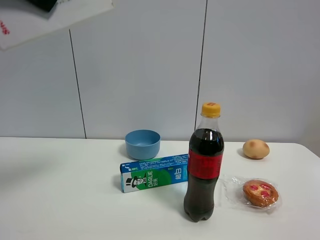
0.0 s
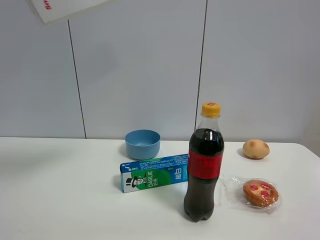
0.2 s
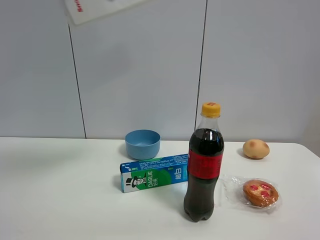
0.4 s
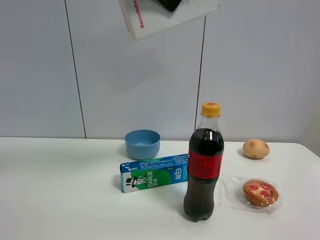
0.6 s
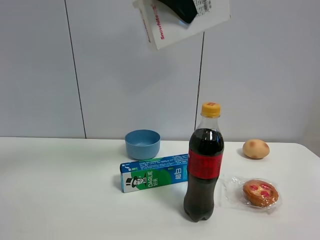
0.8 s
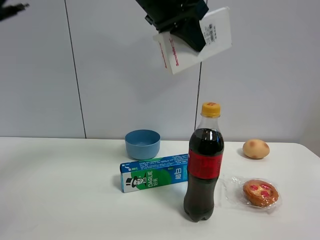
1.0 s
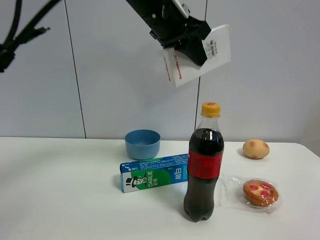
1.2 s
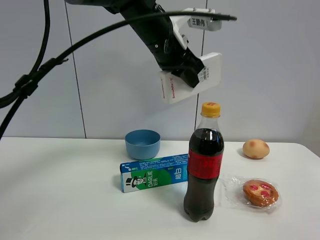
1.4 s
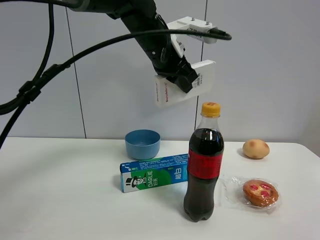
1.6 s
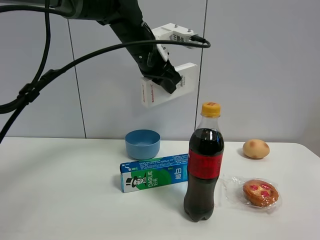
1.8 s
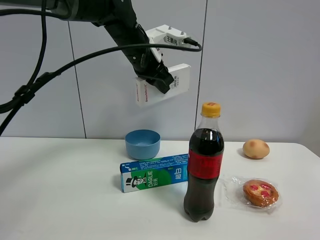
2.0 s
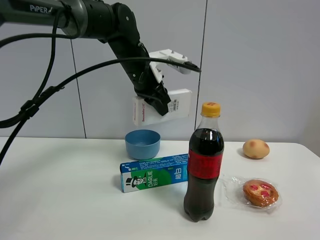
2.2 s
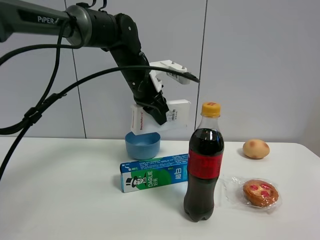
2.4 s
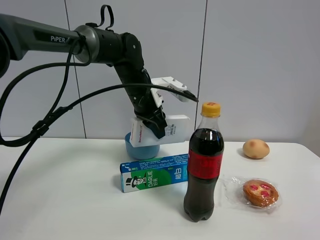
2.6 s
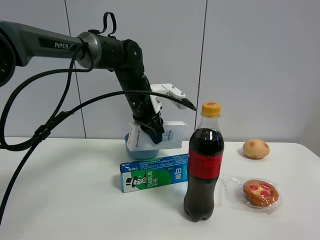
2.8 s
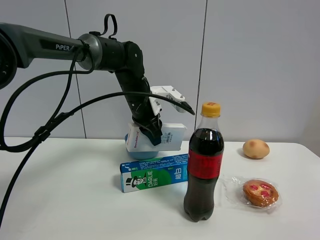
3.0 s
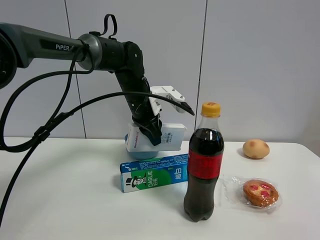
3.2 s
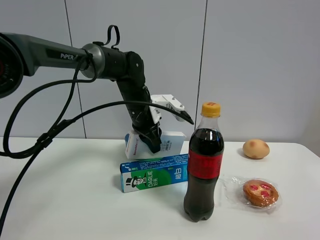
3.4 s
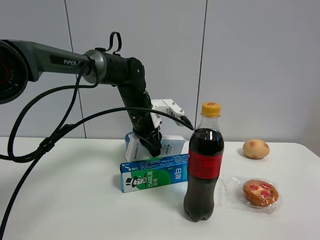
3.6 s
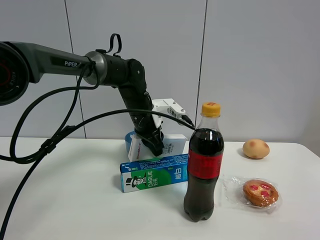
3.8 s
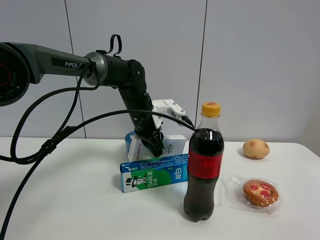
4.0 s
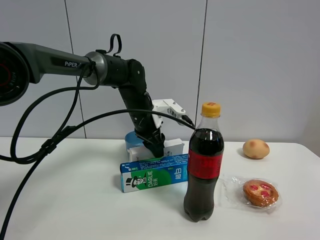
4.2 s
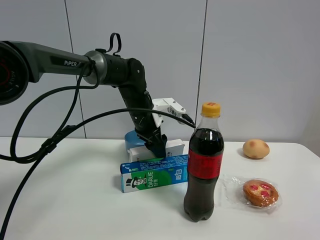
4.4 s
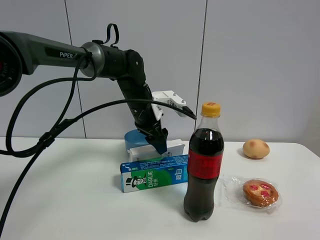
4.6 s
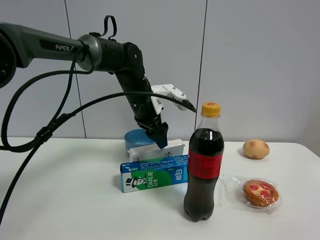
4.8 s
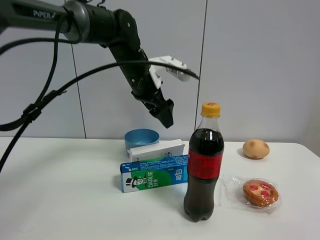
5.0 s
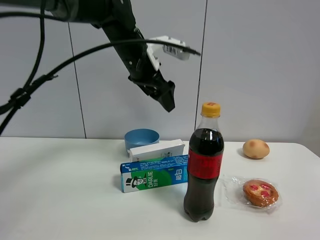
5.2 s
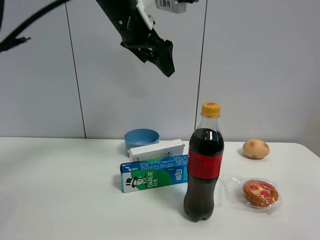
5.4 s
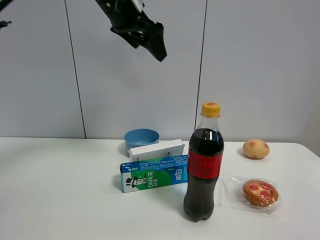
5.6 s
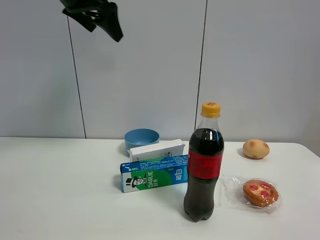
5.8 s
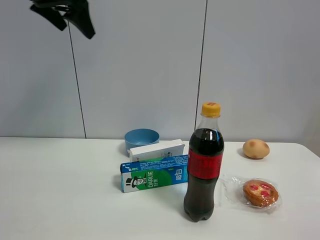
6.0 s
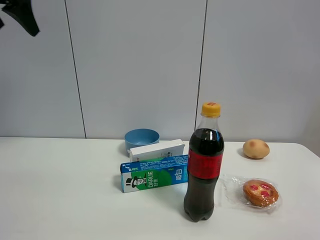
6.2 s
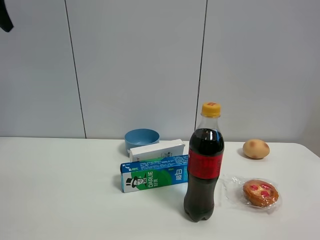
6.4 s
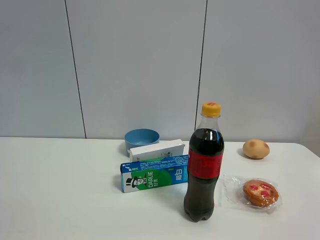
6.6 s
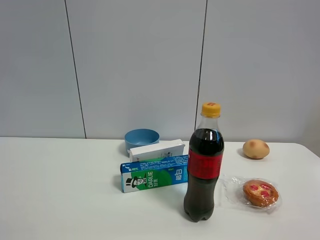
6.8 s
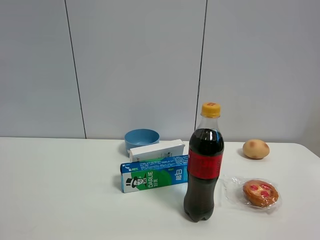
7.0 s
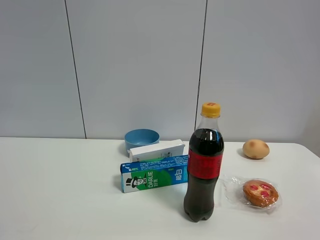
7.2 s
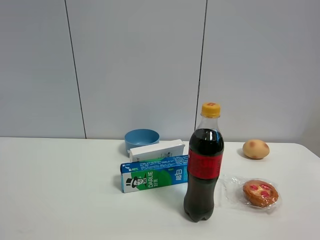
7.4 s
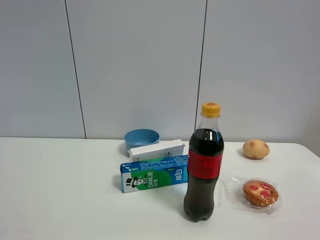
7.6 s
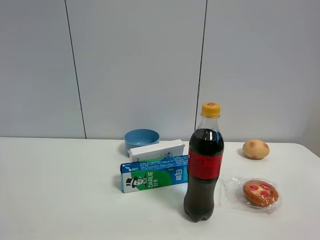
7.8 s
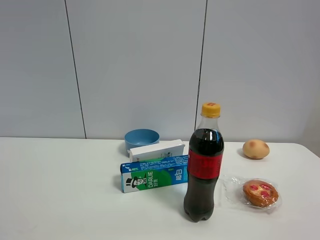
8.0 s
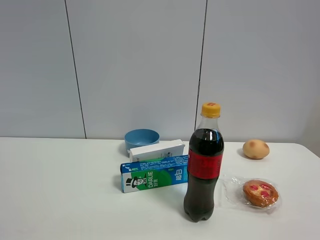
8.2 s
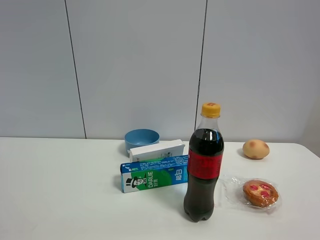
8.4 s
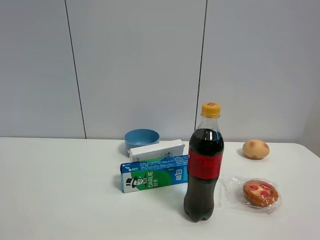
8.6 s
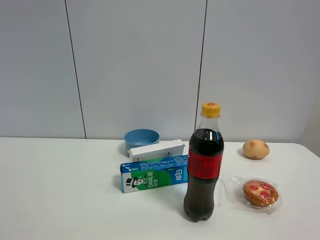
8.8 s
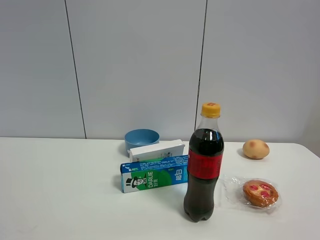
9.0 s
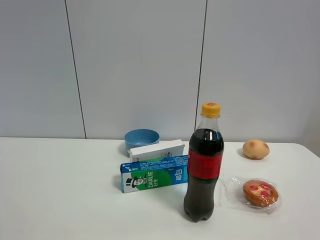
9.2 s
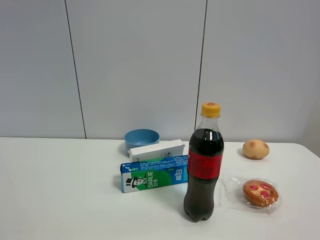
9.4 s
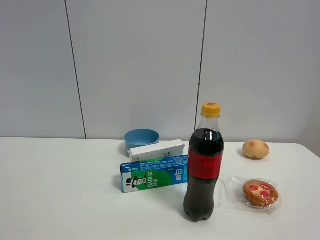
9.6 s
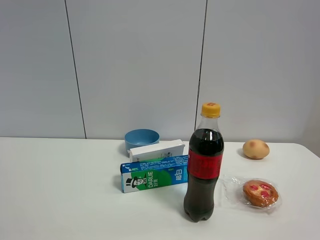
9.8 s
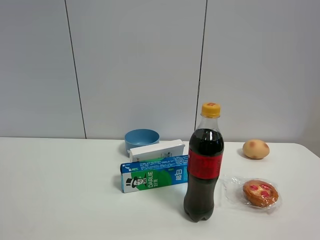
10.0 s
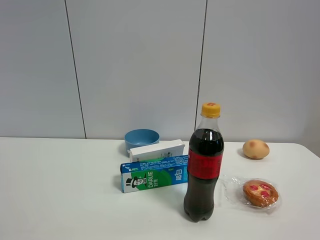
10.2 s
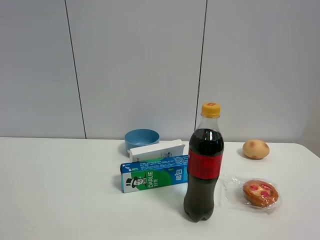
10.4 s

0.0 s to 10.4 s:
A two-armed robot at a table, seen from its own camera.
Task of the whole recording: the gripper move the object.
Step, 0.0 to 4.6 s: Place the USB box on the table with the left gripper.
0.0 to 1.4 s: The left gripper goes some 30 cm to the right, forward and downward.
1.4 to 3.0 s: The left gripper travels downward by about 15 cm.
3.0 to 4.4 s: The left gripper opens its fingers.
4.4 to 6.0 s: The left gripper is displaced upward and to the left by approximately 35 cm, and opens up.
6.0 to 7.4 s: The left gripper moves backward, roughly 35 cm.
9.0 to 10.4 s: Both grippers stay about where they are.

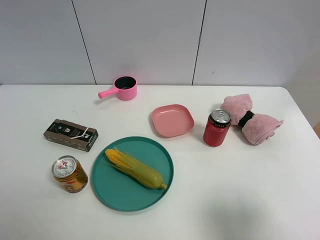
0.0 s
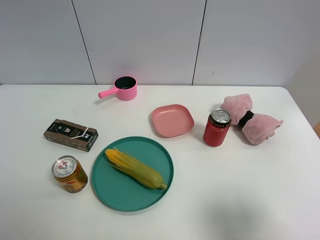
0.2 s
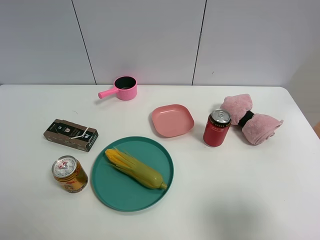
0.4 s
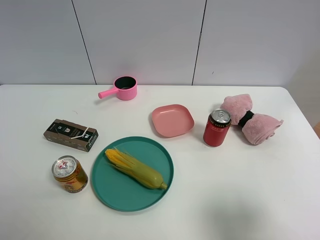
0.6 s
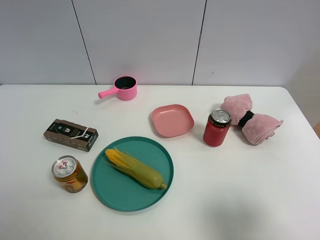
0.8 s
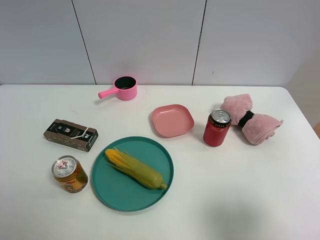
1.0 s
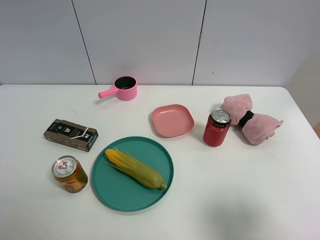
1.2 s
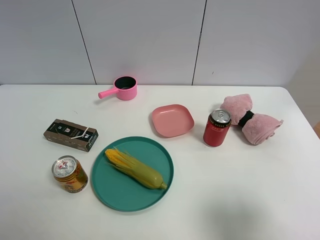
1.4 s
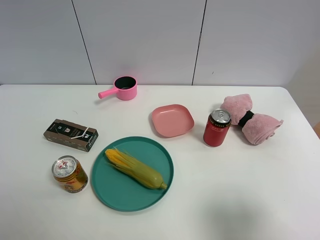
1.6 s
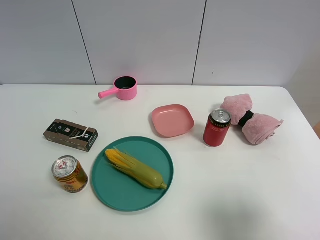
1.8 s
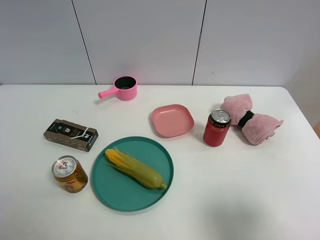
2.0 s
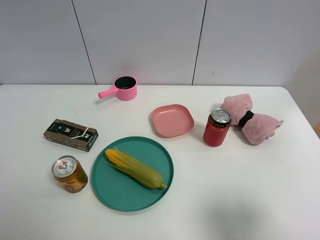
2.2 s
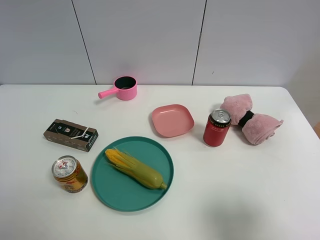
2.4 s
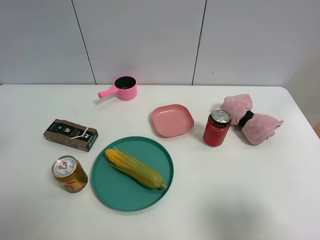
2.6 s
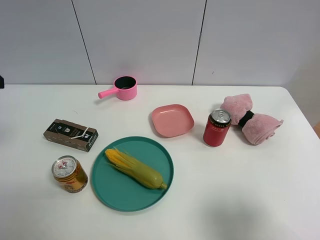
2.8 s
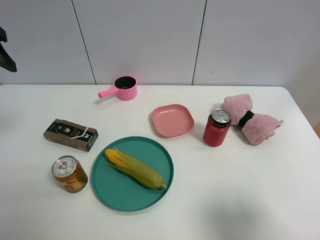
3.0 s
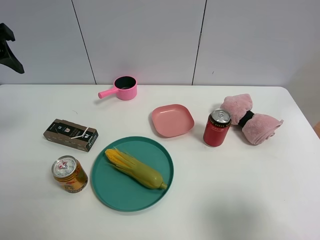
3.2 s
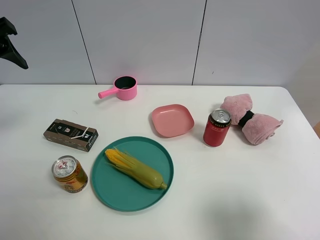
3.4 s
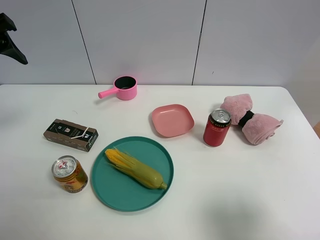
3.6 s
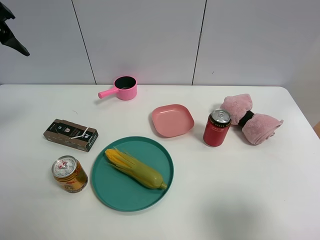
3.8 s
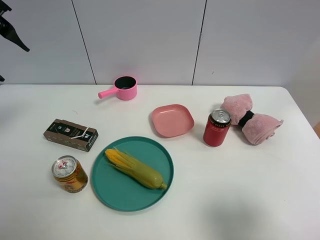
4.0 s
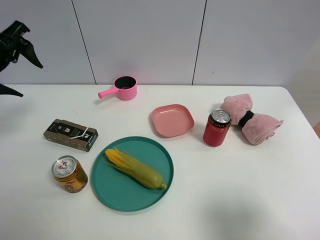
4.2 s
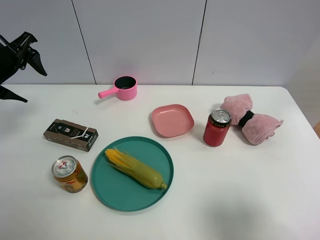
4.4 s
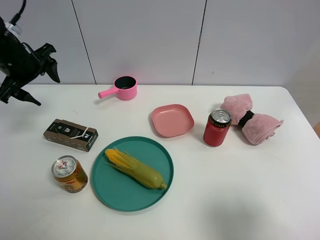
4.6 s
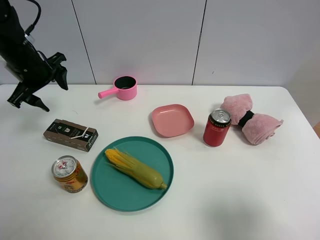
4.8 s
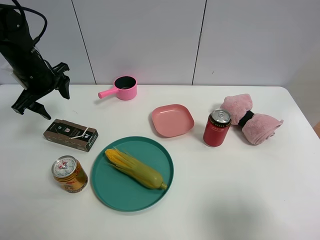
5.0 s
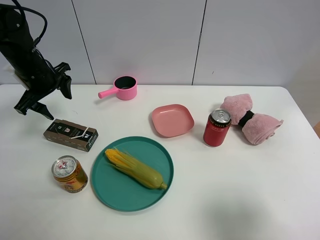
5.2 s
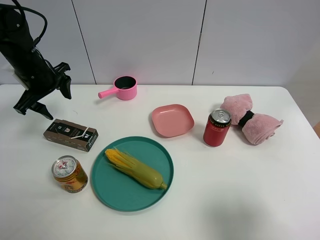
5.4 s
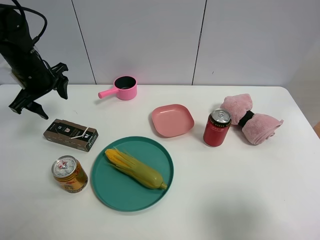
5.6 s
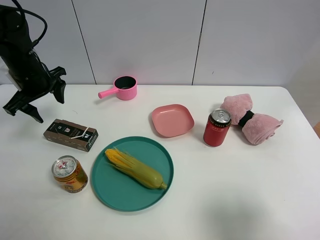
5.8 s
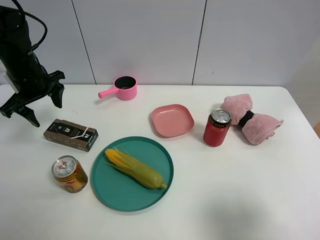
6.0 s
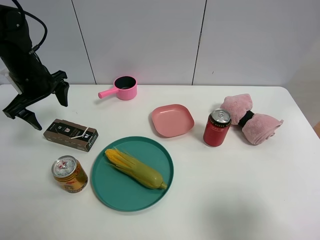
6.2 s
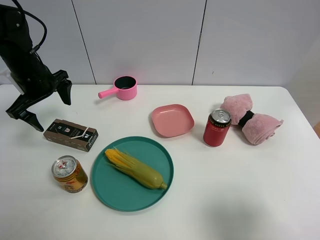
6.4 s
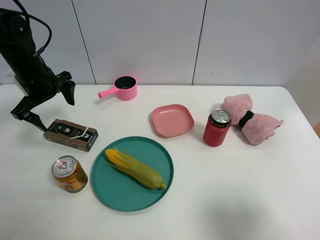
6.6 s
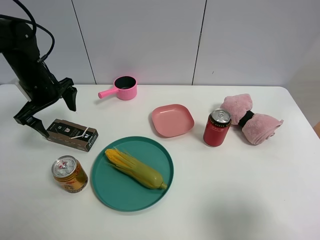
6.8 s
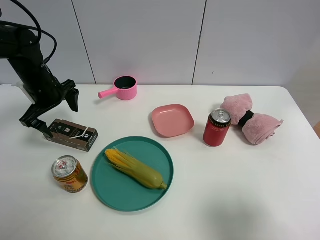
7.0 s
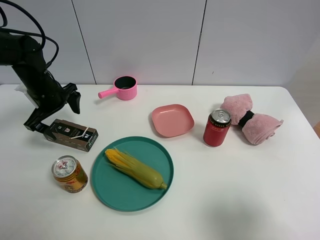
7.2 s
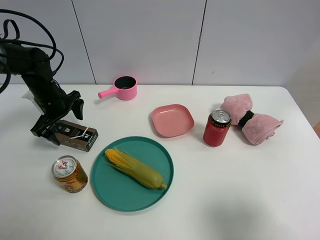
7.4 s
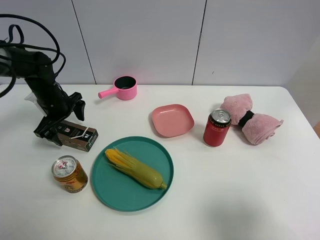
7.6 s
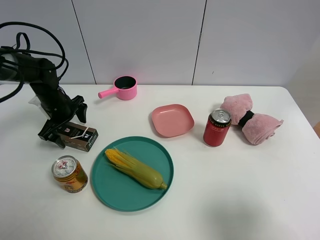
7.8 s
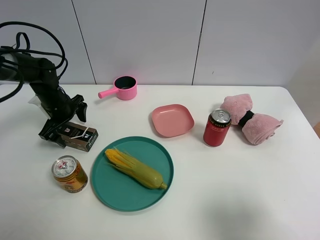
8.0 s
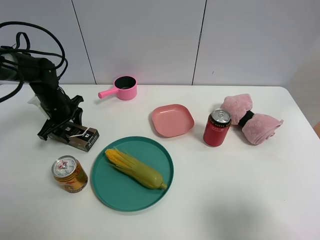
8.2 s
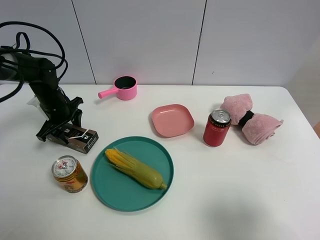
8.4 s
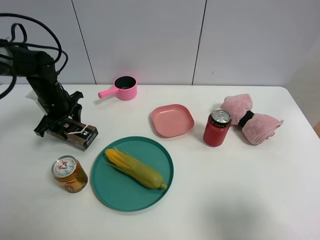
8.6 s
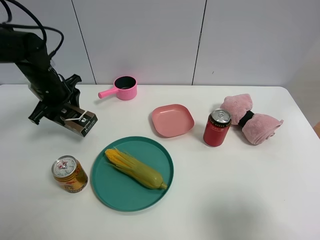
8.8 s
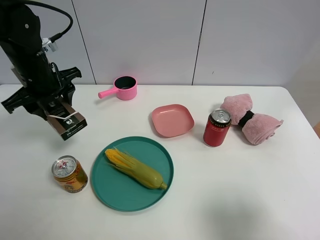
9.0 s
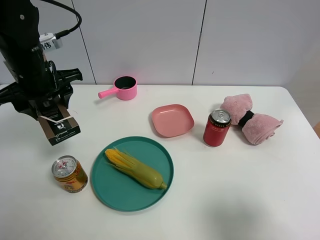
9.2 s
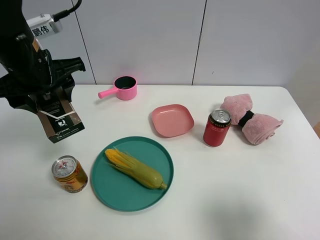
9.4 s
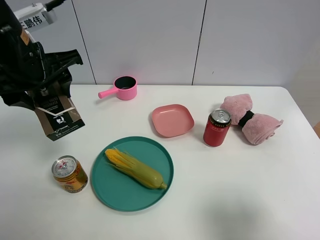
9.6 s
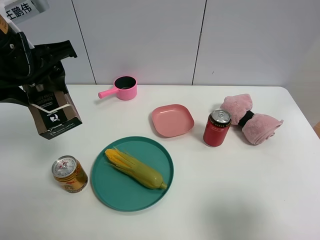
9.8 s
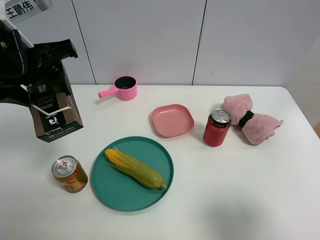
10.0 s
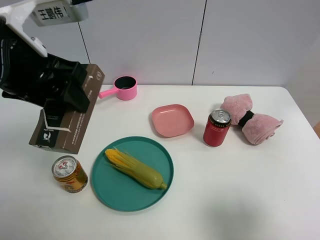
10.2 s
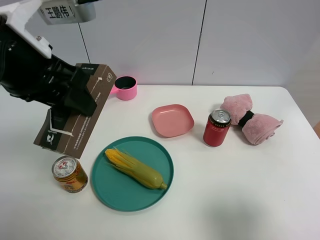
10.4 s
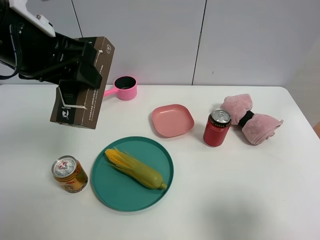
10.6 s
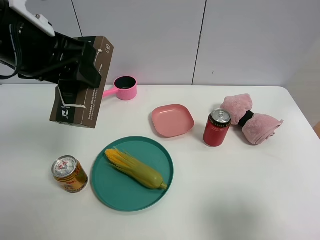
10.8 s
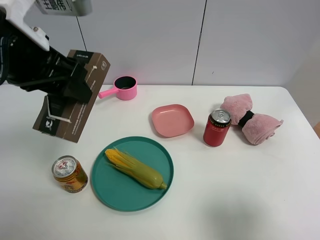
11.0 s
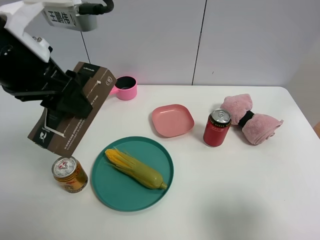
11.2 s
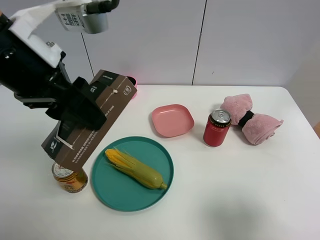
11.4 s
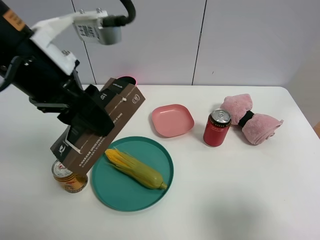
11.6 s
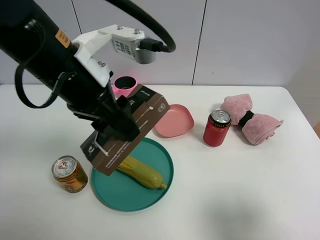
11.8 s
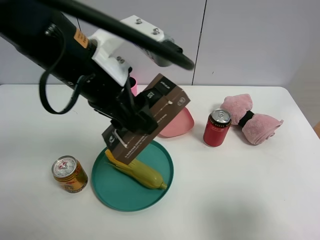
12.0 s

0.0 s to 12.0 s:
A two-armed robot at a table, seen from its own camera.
Task of the whole recording: the gripper move the object.
Step, 0.0 to 8.2 s: Grasp the black box with the left gripper.
1.6 to 3.0 s: The left gripper is displaced forward by approximately 25 cm.
3.0 to 4.4 s: The left gripper shifts about 10 cm forward and downward.
4.4 to 6.0 s: The left gripper goes about 5 cm downward.
6.0 to 7.6 s: The left gripper shifts about 10 cm downward, and opens its fingers.
7.6 to 9.0 s: The left gripper heads upward, covering roughly 10 cm, and closes up.
9.0 to 10.4 s: The left gripper travels backward, upward and to the right by approximately 20 cm.
10.4 to 12.0 s: The left gripper travels to the right by approximately 10 cm.
